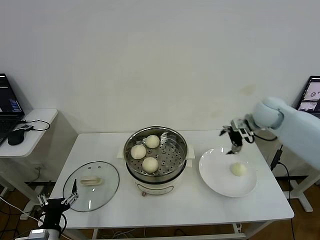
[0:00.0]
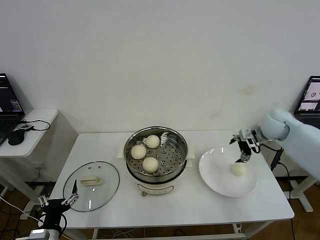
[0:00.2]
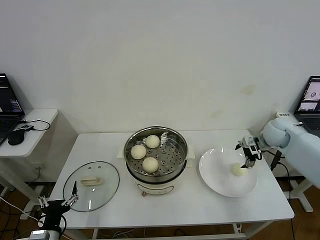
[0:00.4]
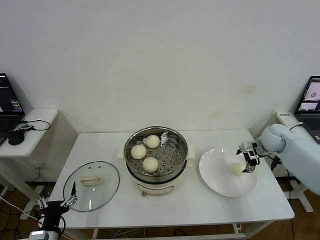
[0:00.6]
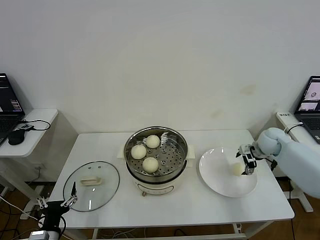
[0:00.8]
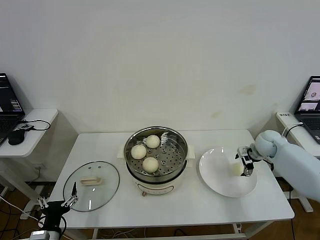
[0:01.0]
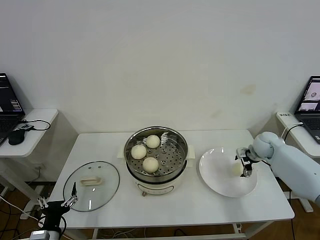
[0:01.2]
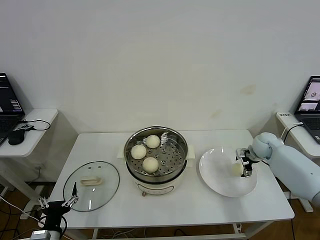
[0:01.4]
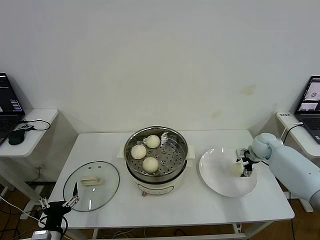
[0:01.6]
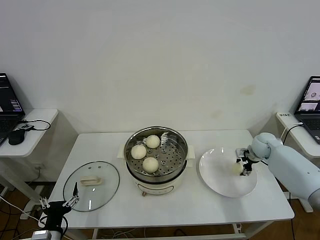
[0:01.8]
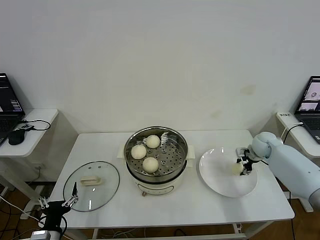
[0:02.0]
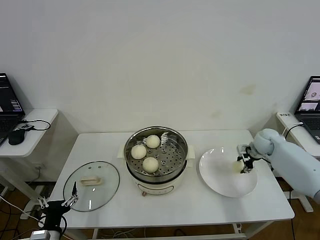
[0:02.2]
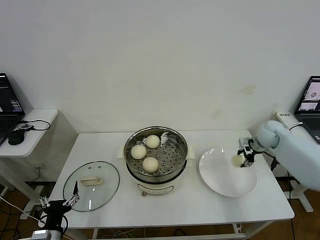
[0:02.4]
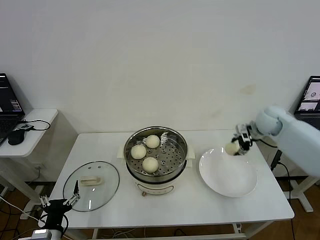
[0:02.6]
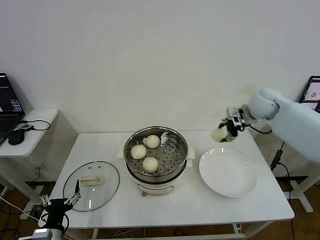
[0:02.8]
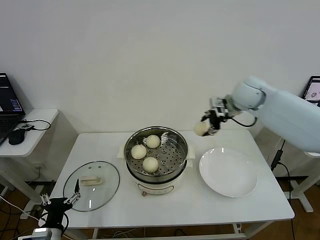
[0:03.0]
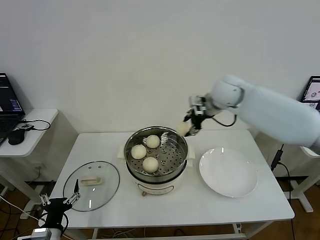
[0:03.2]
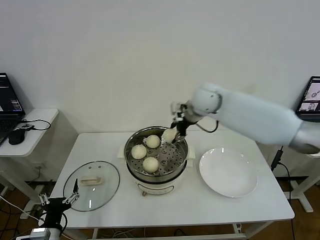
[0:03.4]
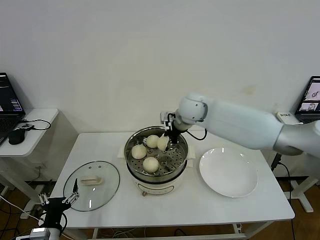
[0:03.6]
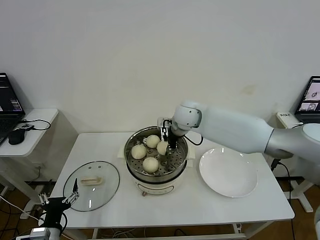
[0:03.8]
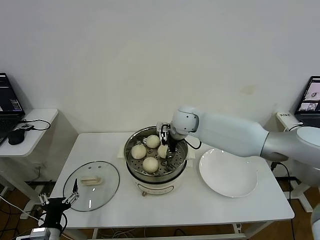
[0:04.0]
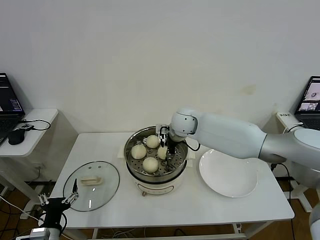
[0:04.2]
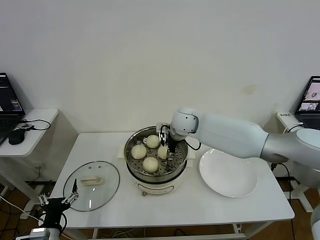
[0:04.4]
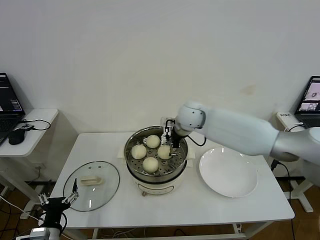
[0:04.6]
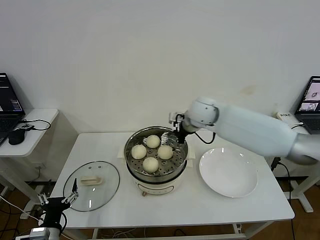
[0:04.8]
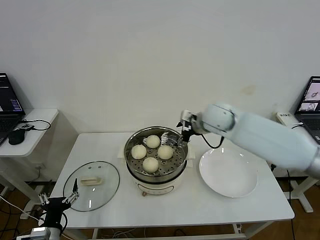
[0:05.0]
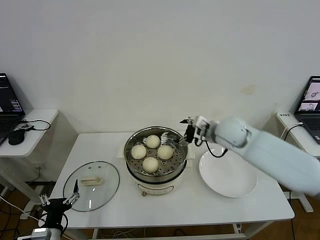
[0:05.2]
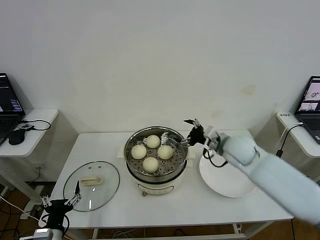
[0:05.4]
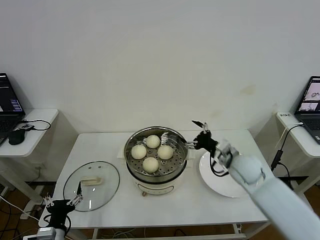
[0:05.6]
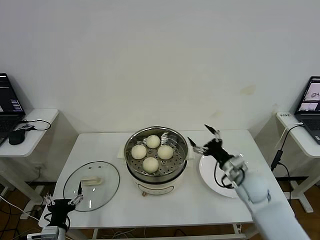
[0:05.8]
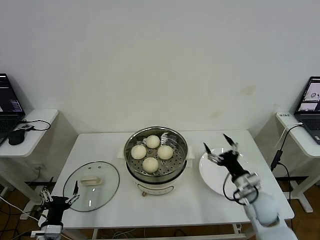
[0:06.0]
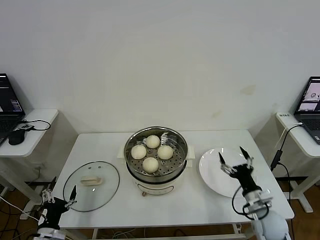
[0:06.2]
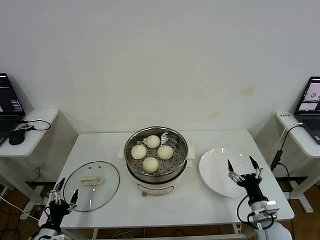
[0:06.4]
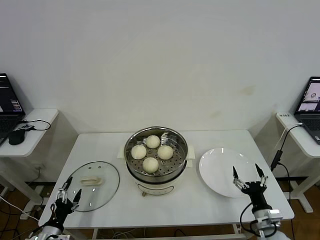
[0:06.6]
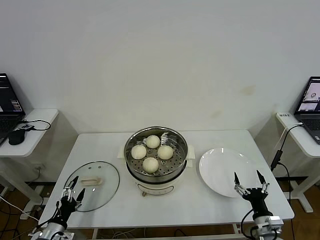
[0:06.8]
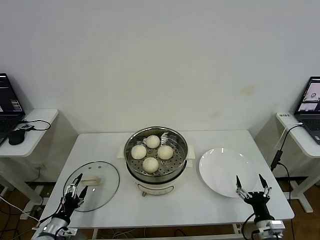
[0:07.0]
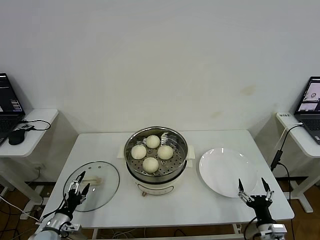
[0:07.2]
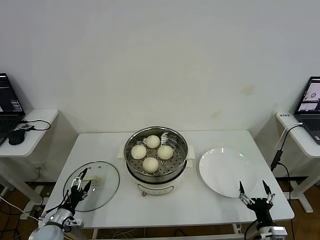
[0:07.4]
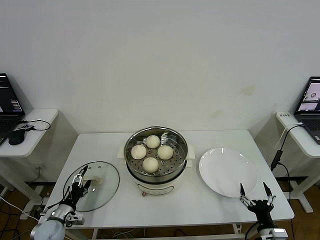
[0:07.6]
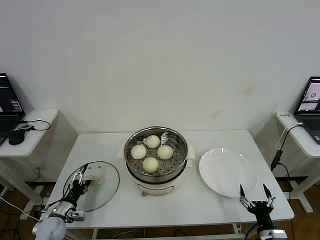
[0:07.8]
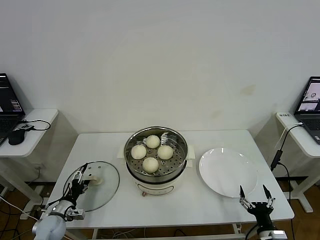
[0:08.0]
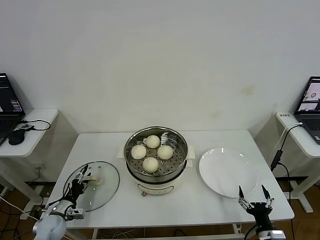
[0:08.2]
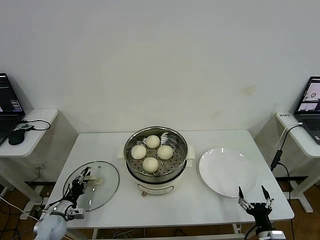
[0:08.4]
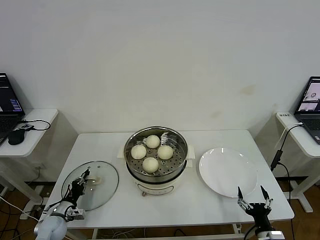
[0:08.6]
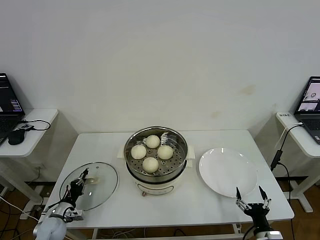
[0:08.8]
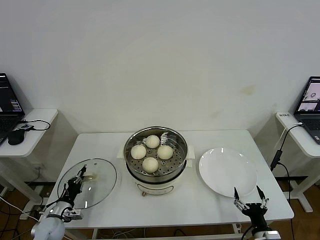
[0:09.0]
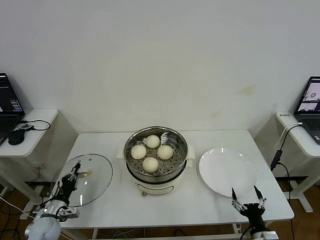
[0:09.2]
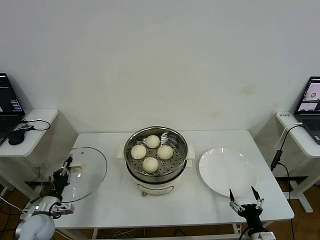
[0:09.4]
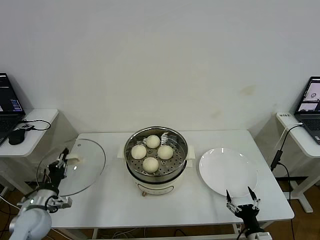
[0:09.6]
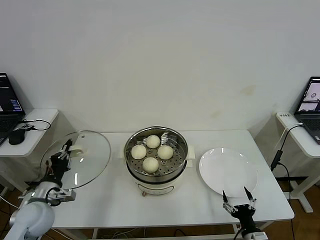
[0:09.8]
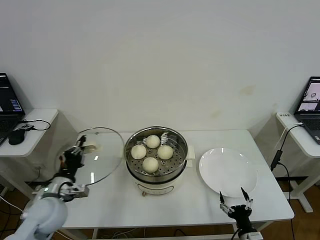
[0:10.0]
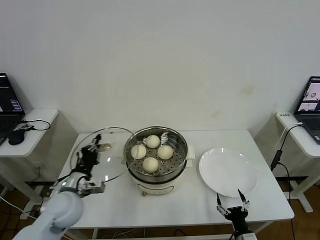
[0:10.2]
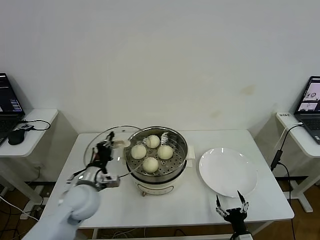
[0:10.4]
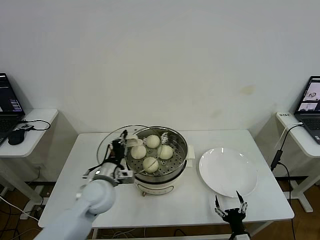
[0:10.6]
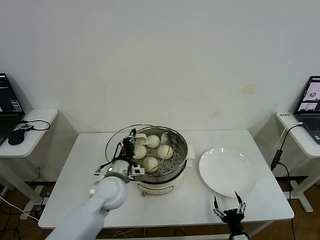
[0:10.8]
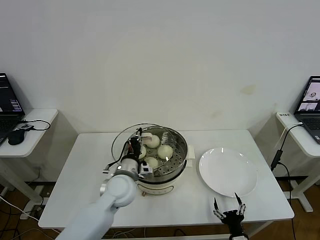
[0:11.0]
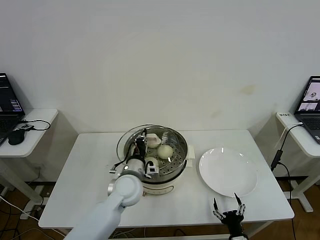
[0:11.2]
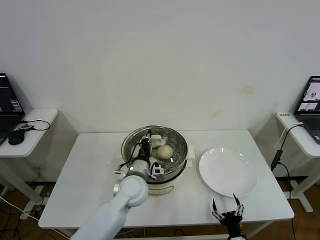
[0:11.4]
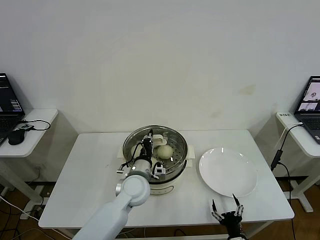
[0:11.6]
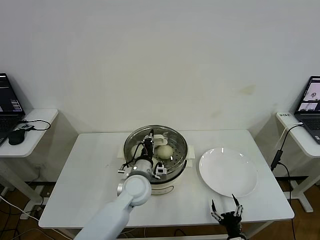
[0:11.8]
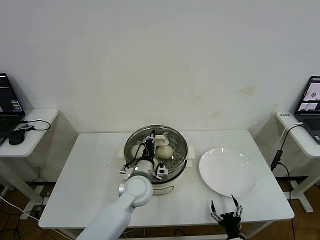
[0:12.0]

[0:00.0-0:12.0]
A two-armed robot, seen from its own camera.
Step, 0:00.0 to 0:02.0: Grasp the baozi in the plate with right gripper.
Step, 0:02.2 to 0:04.4: Place the baozi on the steamer with right gripper.
Step, 0:04.6 to 0:08.8: Grasp the pot lid with left gripper.
0:00.0 to 0:01.6: The right gripper moves downward, approximately 15 cm, and closes up.
0:01.6 to 0:03.0: The right gripper travels upward and to the left by approximately 30 cm, and closes.
0:03.0 to 0:04.4: The right gripper shifts about 20 cm to the left and downward, and opens.
0:04.4 to 0:06.0: The right gripper travels to the right, backward and downward by some 35 cm.
0:06.0 to 0:07.6: The right gripper goes some 20 cm backward and downward; the left gripper heads forward, downward and to the left, covering about 10 cm.
0:07.6 to 0:09.0: The left gripper closes up.
0:09.0 to 0:10.4: The left gripper heads upward and to the right, covering roughly 25 cm, while the right gripper travels to the left by approximately 5 cm.
0:10.4 to 0:12.0: The left gripper travels to the right by approximately 15 cm.

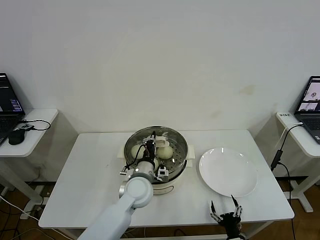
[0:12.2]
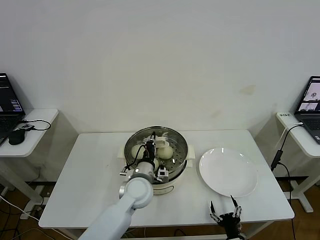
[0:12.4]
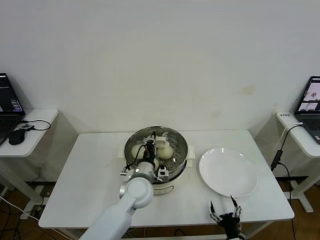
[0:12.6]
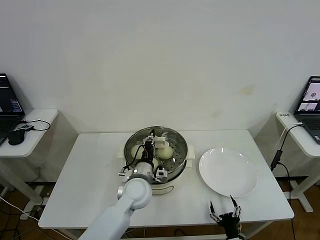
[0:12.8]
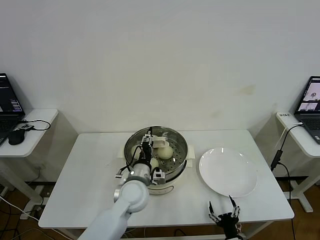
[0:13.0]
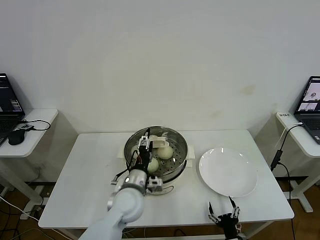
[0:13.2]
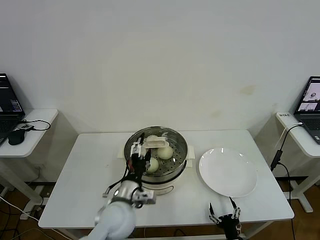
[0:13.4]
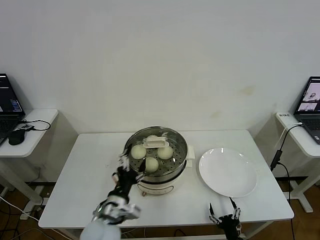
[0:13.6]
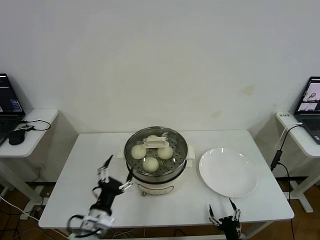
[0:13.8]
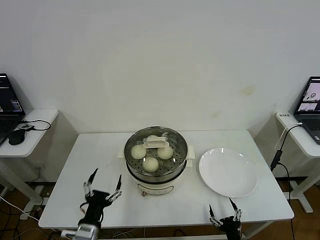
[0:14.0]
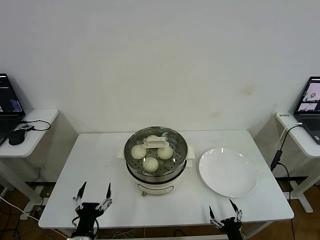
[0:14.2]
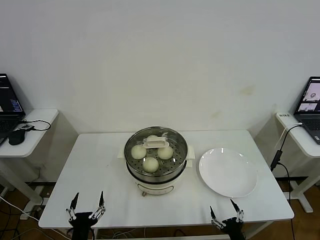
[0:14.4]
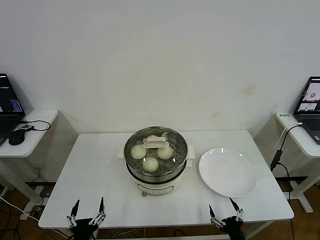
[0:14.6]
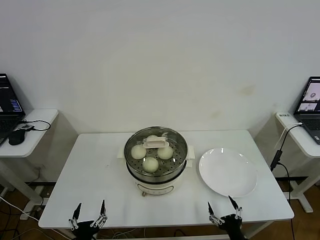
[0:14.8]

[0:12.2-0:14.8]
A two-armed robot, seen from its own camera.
0:12.2 to 0:13.4: The left gripper is displaced backward by about 10 cm, and opens.
0:13.4 to 0:14.8: The left gripper travels backward, to the left and downward by roughly 25 cm. Meanwhile the right gripper shifts about 5 cm upward.
